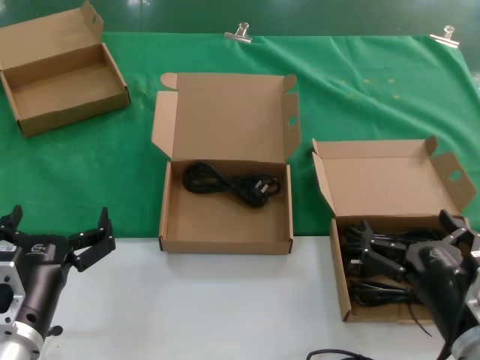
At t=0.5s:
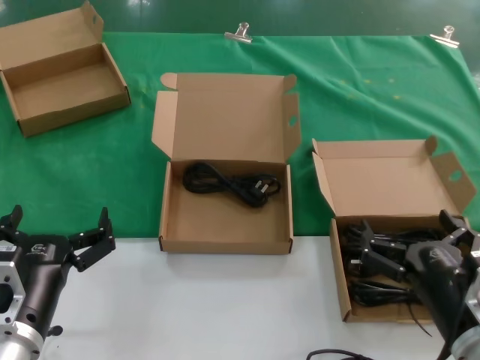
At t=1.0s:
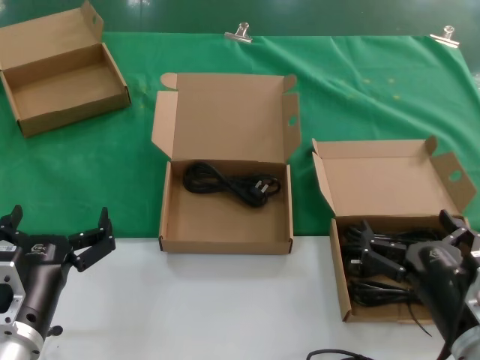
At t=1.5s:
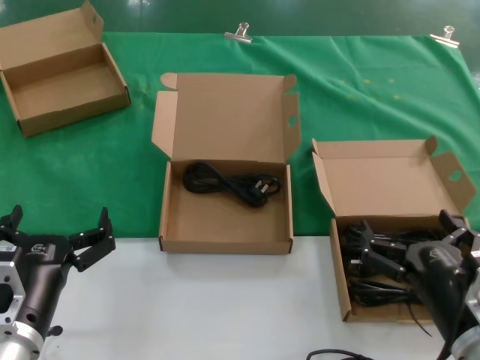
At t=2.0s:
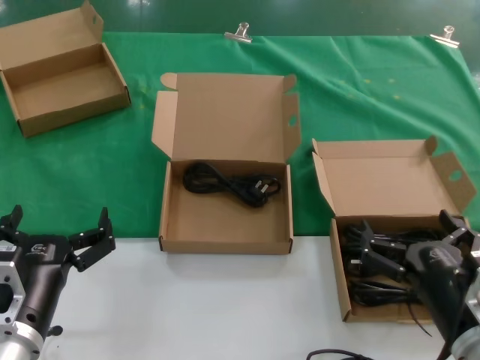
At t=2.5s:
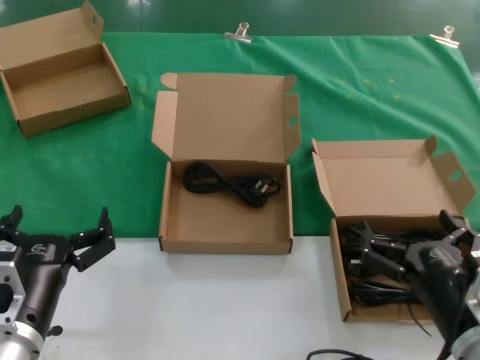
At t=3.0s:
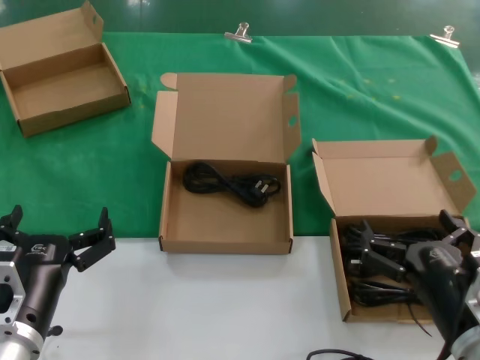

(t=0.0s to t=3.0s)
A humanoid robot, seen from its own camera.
Task of the whole recording: take the parts from the box containing them and put them into an empty box.
t=0.0s - t=3.0s: Both hands stay put.

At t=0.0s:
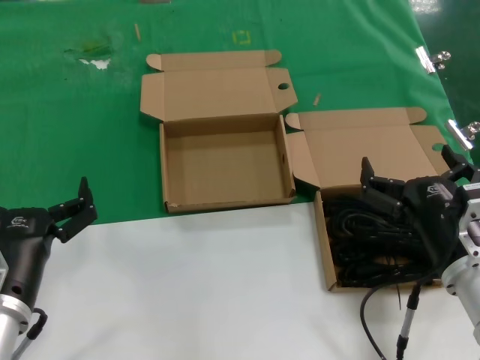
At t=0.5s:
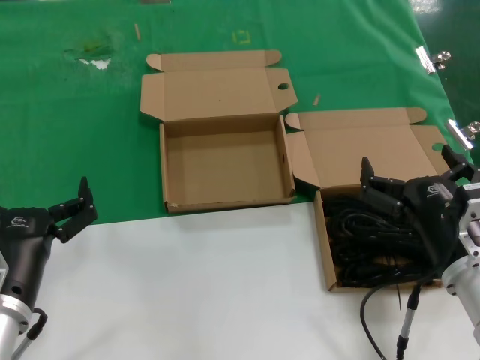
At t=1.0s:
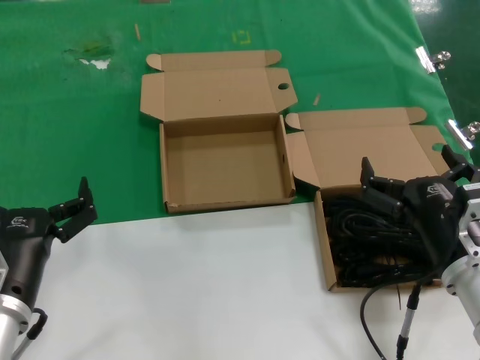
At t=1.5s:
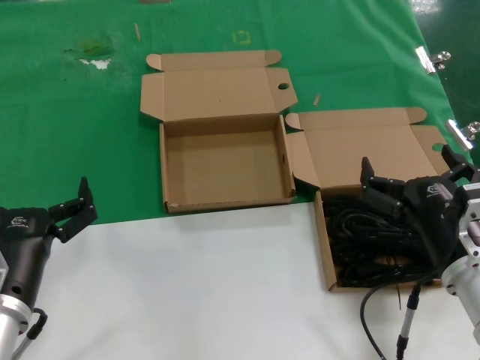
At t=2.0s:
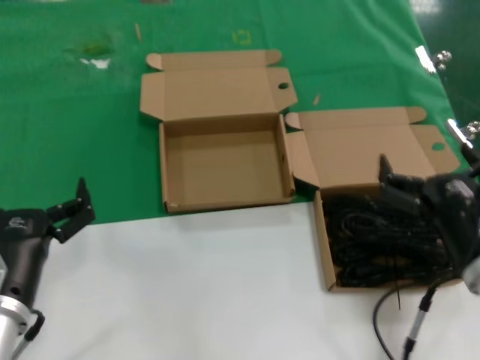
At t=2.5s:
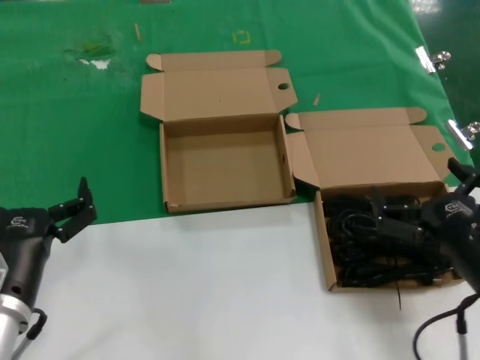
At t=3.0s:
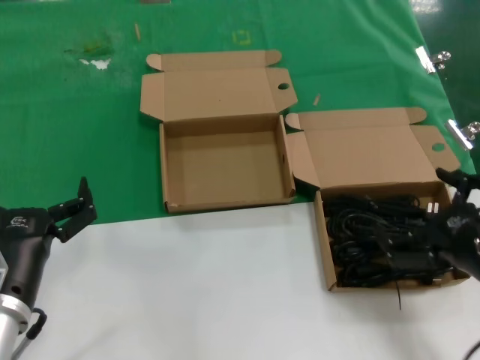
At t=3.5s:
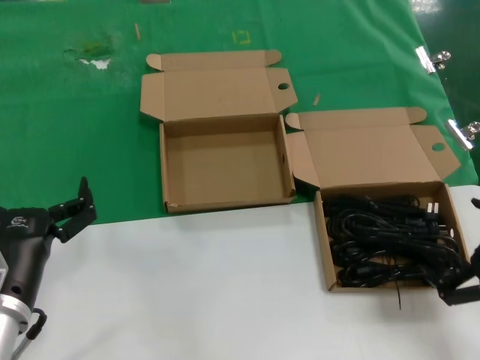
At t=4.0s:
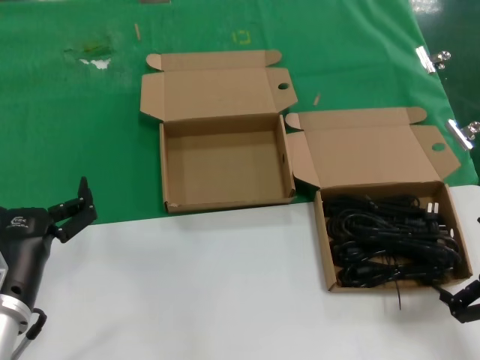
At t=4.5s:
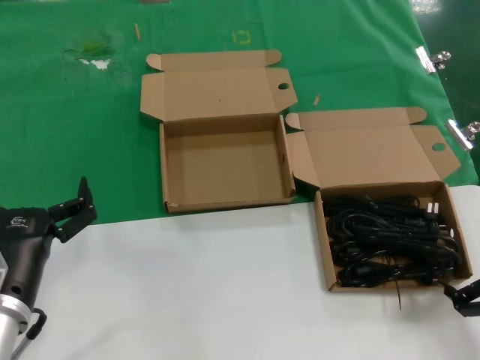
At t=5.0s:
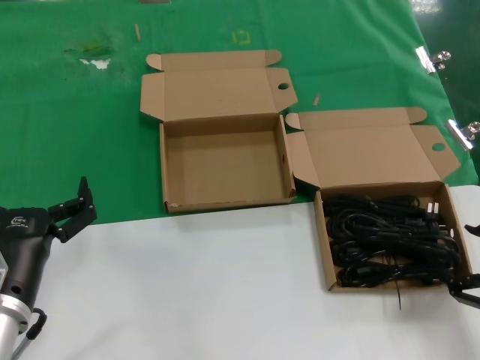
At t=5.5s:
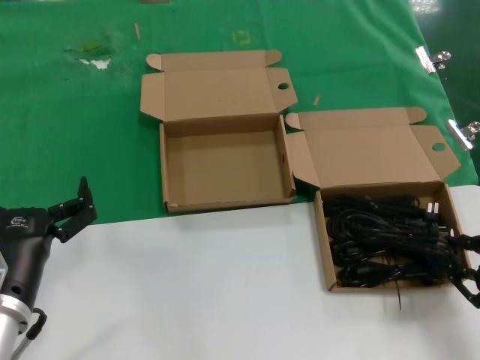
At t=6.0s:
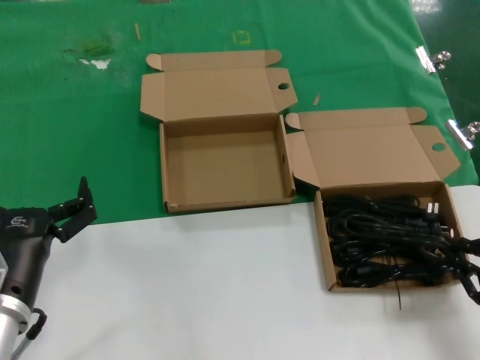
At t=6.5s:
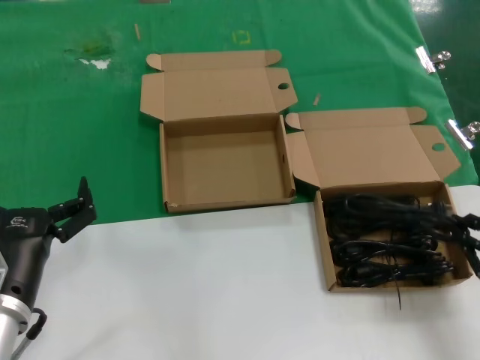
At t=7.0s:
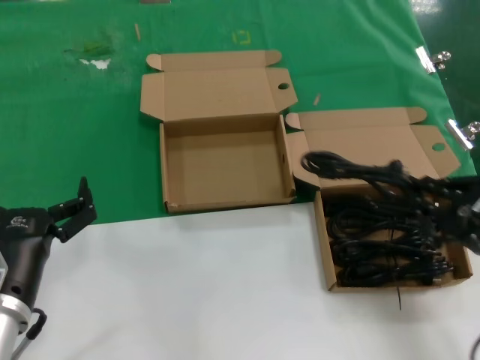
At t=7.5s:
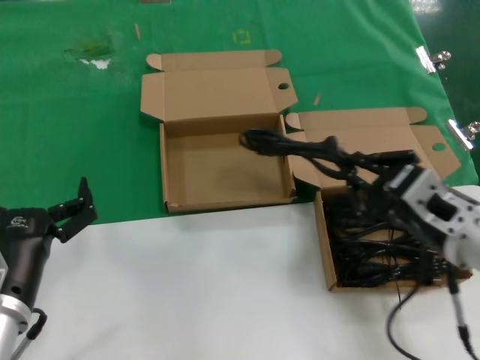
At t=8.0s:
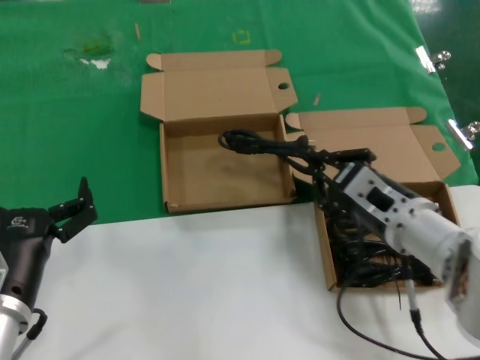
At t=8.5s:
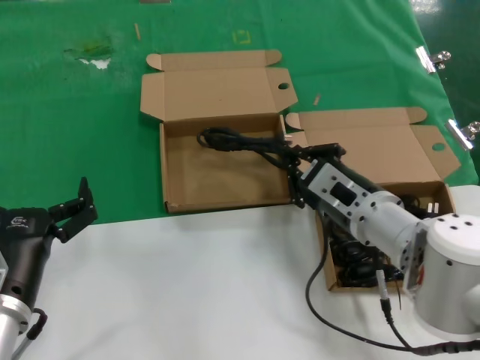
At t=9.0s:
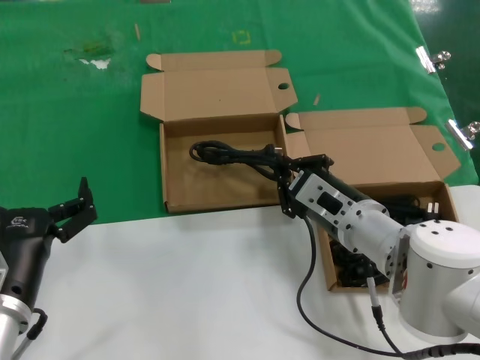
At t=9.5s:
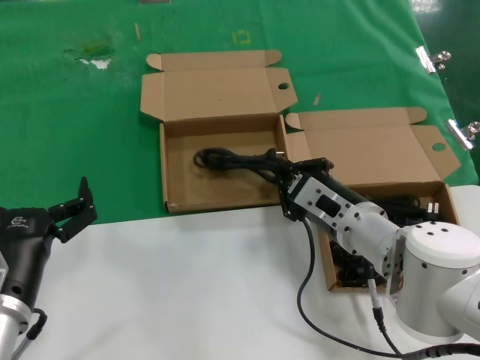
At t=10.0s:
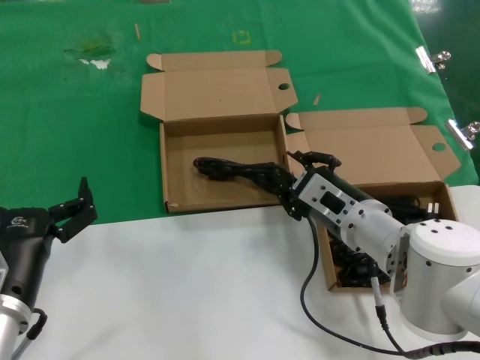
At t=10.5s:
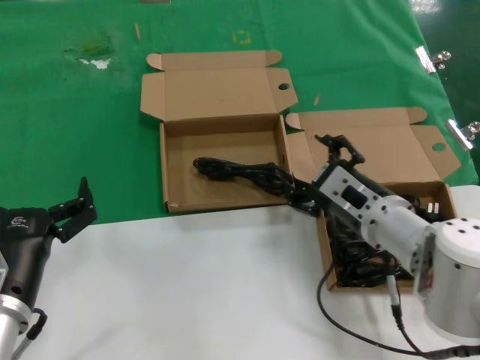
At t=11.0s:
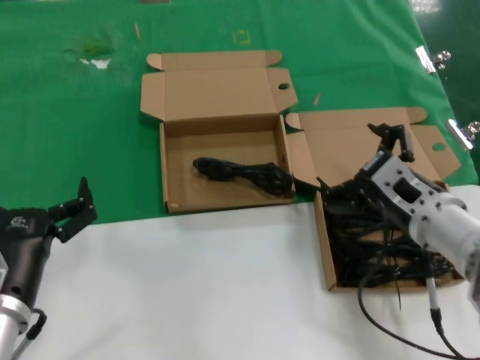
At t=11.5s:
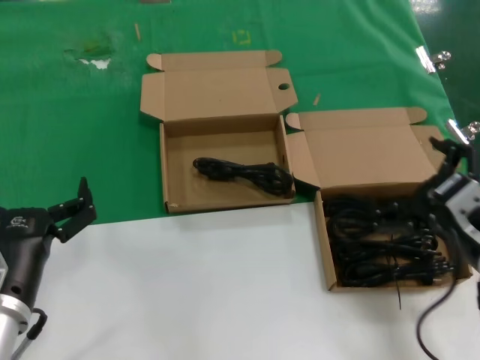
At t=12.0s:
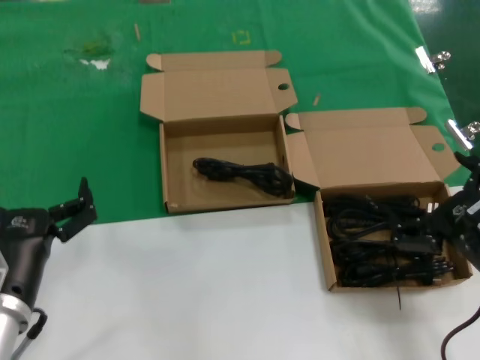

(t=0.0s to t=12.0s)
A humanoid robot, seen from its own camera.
Task of the whole recording: take the parts from the box containing them and put them into an empty box.
Step, t=0.0s - t=6.0s: Grasp the data cable.
Step, t=6.5s - t=10.0s: Place the data cable in the another box.
t=0.0s - t=2.0s: Both hands stay put.
t=2.0s - t=4.0s: The right hand is displaced to the right and backward by approximately 15 cm.
t=4.0s - t=6.0s: The hands stay close to where they were, moving slightly.
t=6.0s - t=8.0s: The right hand travels to the left and forward by approximately 20 cm.
t=8.0s - t=10.0s: The right hand moves some 5 cm.
t=10.0s - t=12.0s: The right hand goes roughly 20 cm backward and to the right.

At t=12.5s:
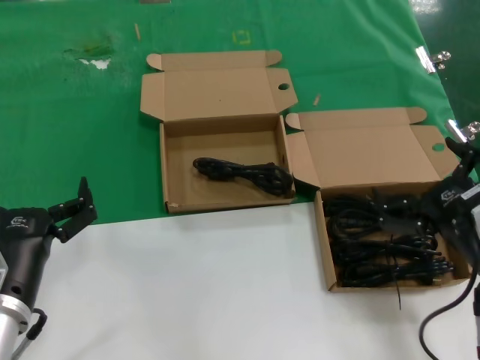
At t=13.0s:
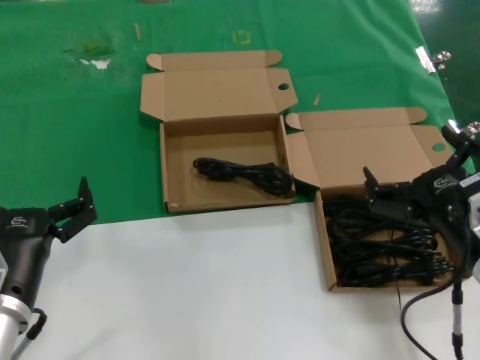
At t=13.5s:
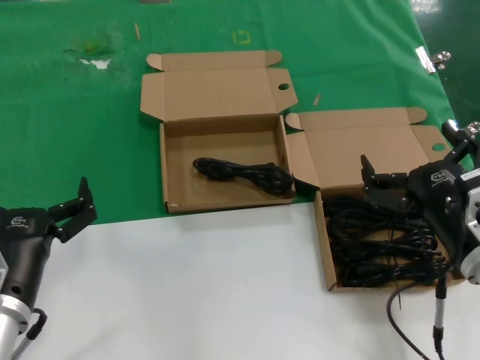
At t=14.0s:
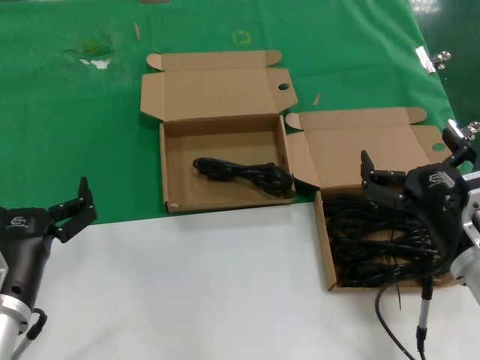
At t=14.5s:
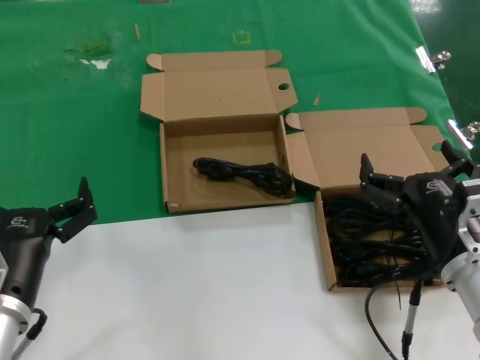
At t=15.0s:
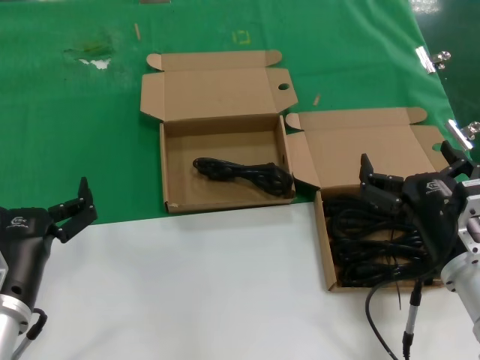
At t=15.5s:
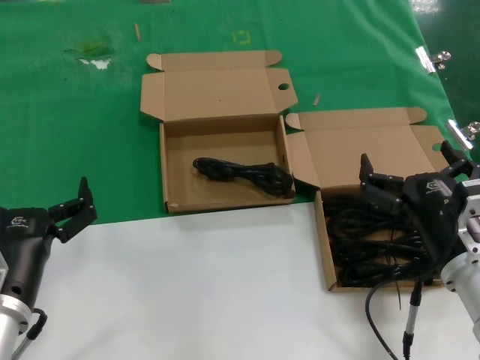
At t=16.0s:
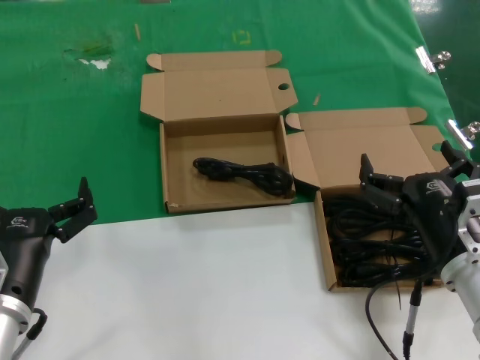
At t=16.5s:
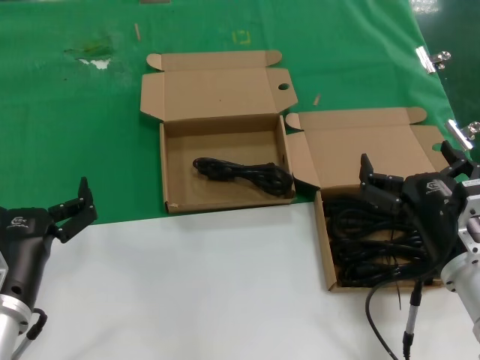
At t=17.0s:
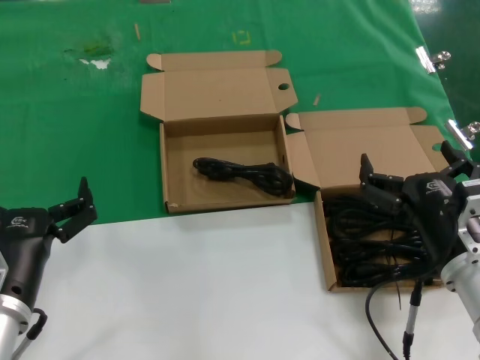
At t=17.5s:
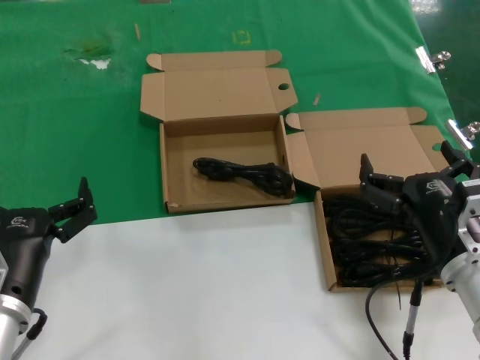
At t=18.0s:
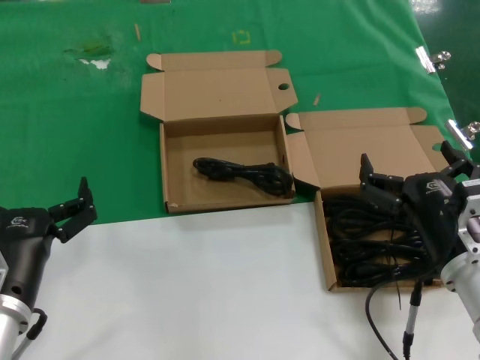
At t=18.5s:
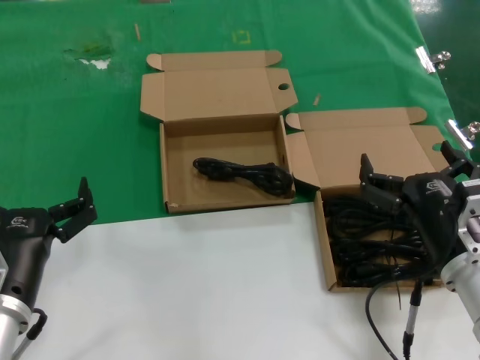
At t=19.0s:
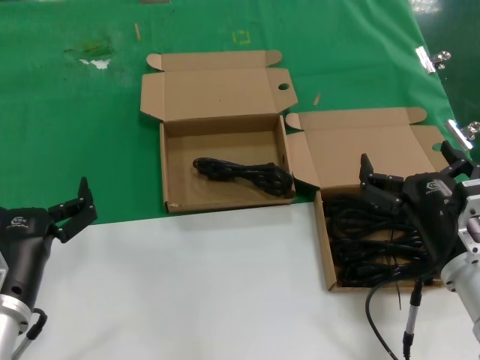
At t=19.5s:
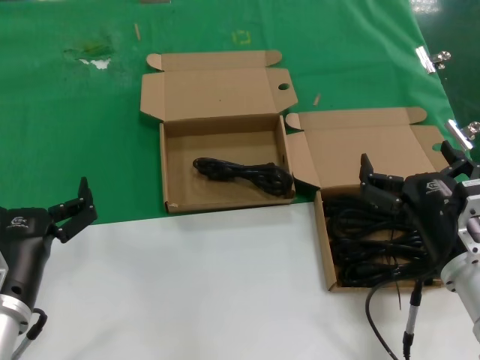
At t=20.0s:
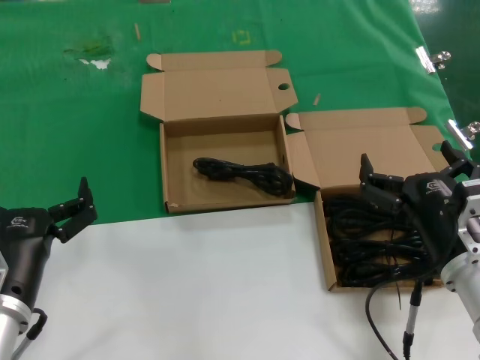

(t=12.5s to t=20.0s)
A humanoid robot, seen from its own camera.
Task of the whole recording: take the parts from the box containing them and put them into an empty box.
t=12.5s - t=14.5s: The right hand changes place by roughly 5 cm.
t=14.5s - t=20.0s: Both hands stay about where they are.
